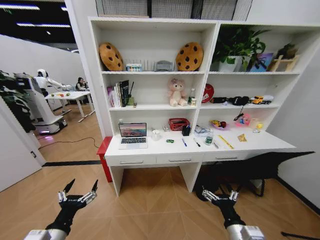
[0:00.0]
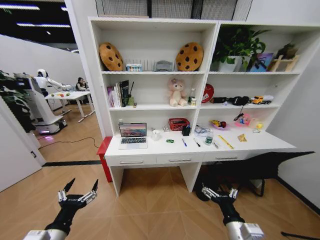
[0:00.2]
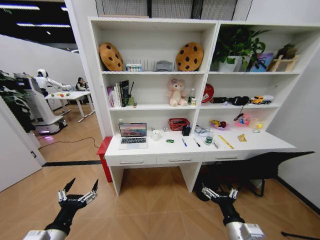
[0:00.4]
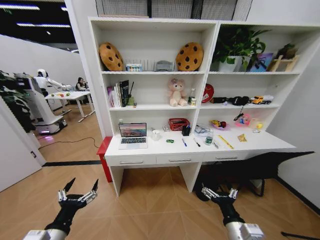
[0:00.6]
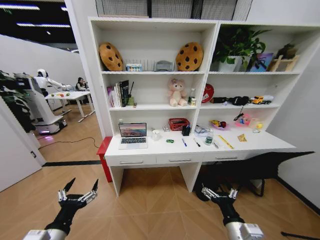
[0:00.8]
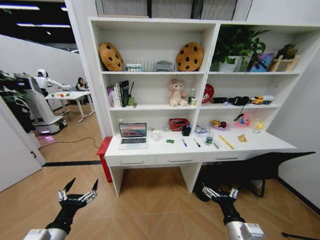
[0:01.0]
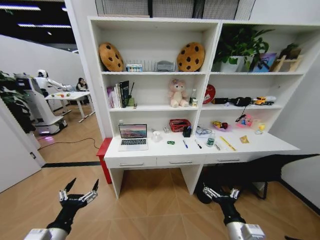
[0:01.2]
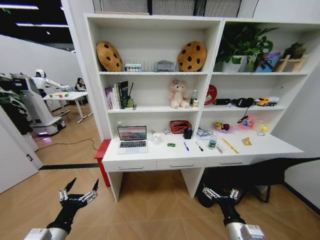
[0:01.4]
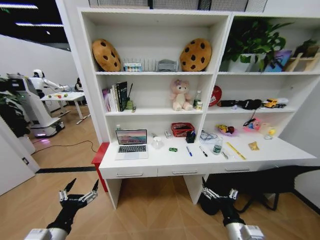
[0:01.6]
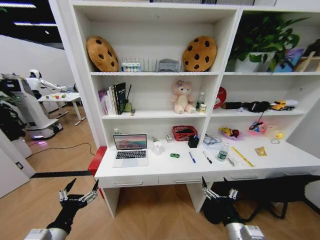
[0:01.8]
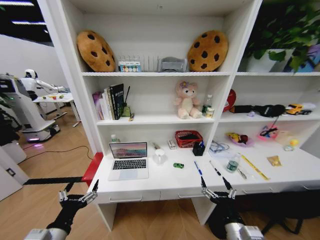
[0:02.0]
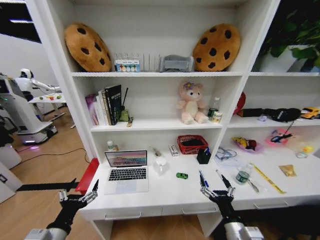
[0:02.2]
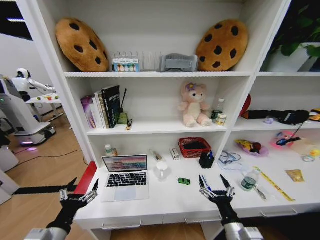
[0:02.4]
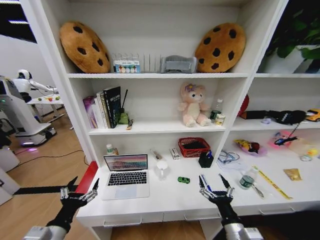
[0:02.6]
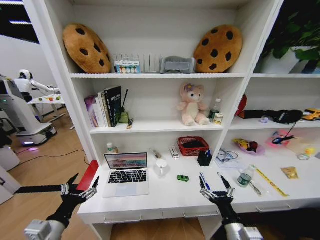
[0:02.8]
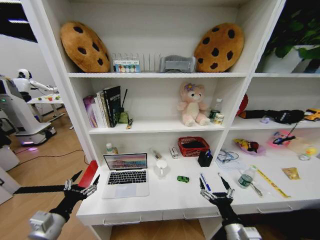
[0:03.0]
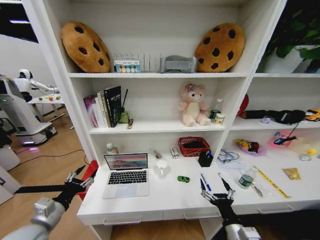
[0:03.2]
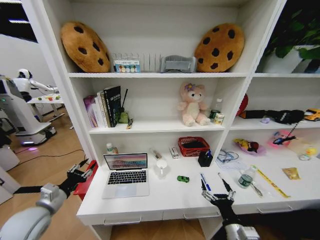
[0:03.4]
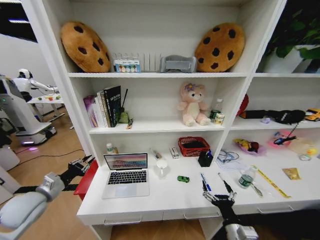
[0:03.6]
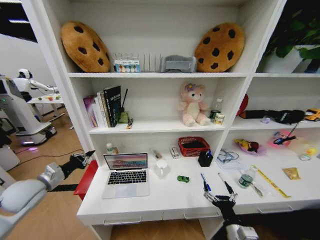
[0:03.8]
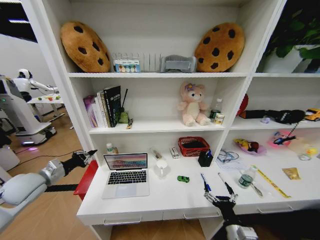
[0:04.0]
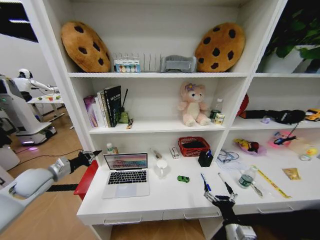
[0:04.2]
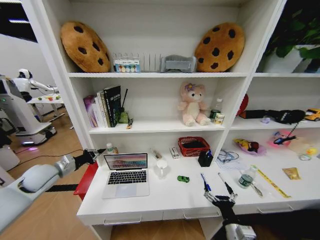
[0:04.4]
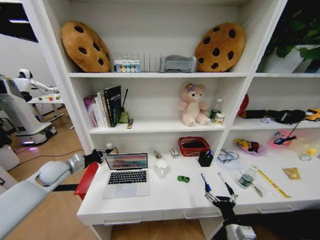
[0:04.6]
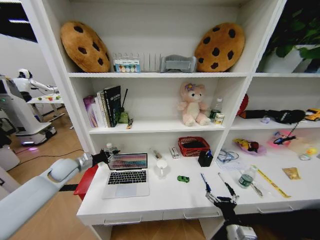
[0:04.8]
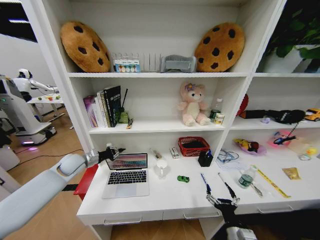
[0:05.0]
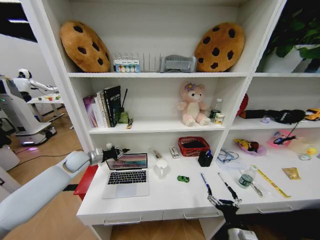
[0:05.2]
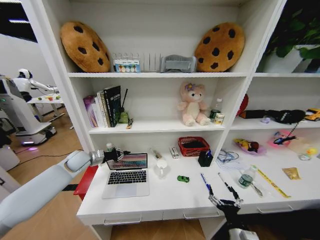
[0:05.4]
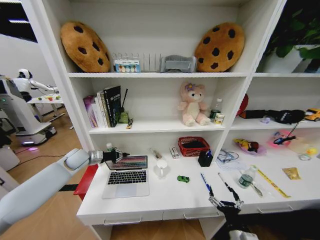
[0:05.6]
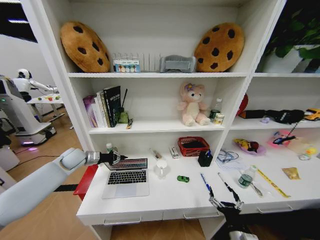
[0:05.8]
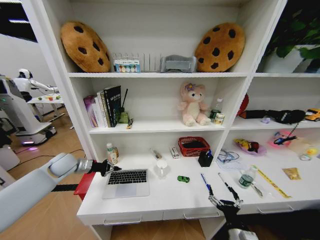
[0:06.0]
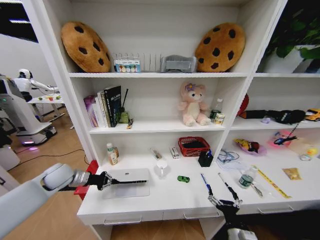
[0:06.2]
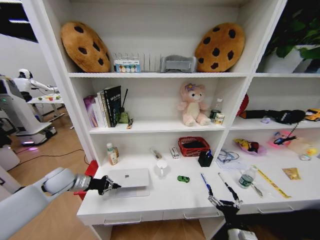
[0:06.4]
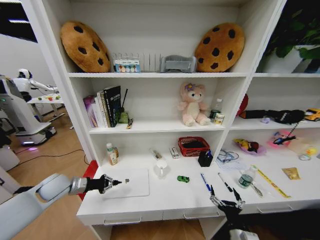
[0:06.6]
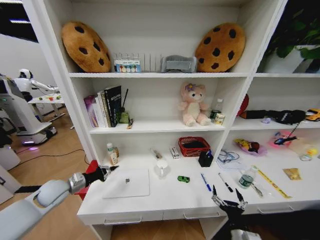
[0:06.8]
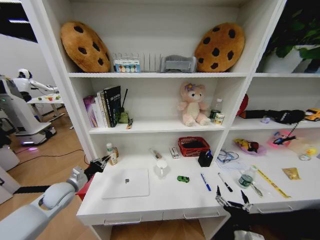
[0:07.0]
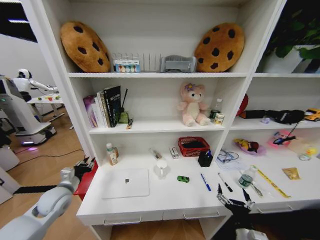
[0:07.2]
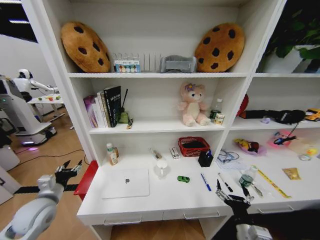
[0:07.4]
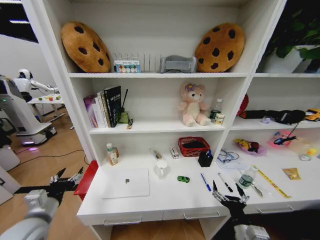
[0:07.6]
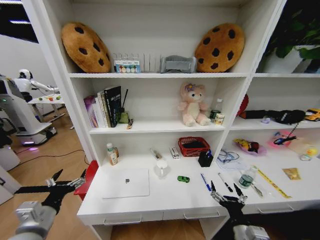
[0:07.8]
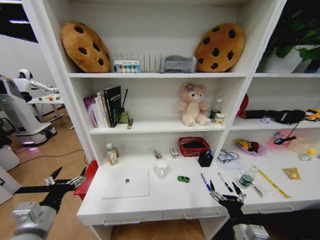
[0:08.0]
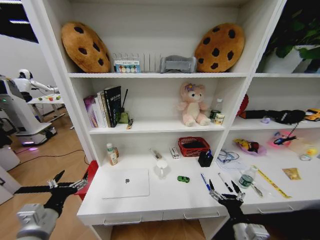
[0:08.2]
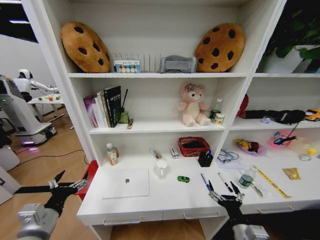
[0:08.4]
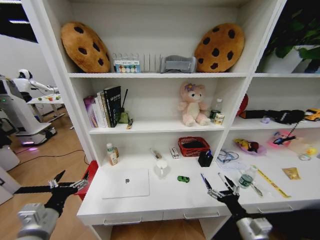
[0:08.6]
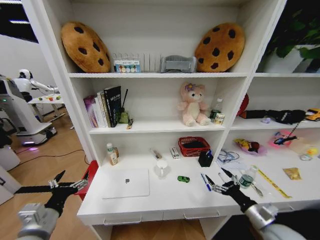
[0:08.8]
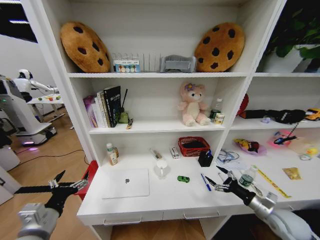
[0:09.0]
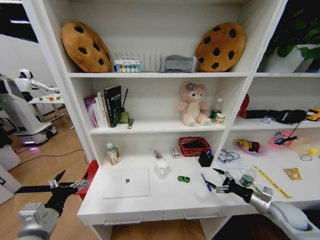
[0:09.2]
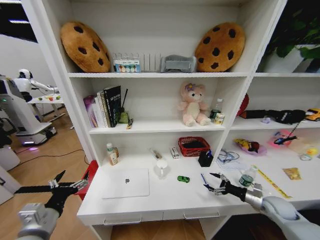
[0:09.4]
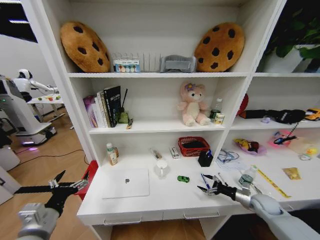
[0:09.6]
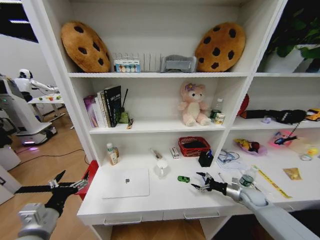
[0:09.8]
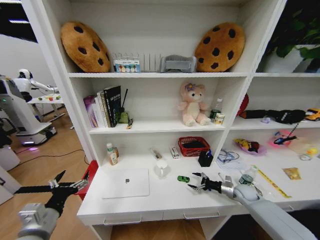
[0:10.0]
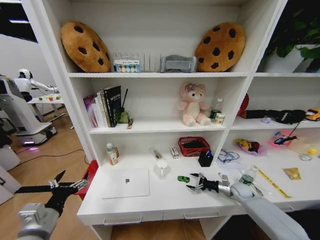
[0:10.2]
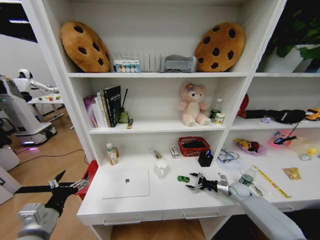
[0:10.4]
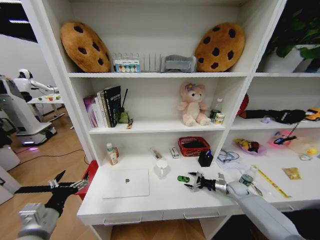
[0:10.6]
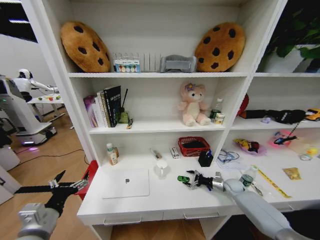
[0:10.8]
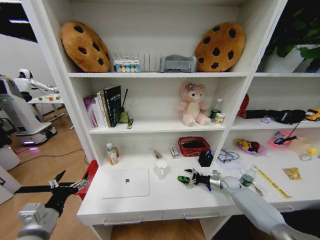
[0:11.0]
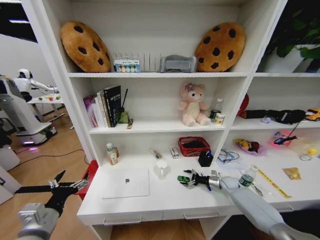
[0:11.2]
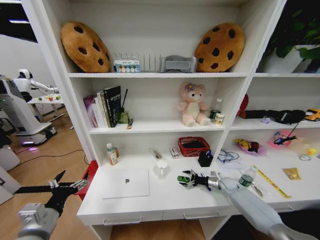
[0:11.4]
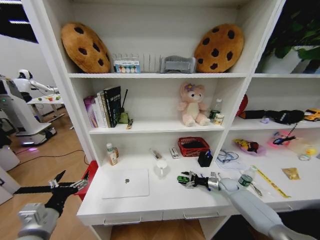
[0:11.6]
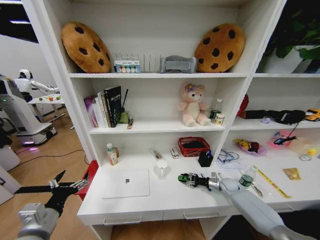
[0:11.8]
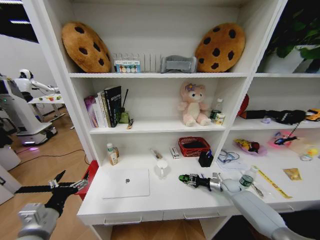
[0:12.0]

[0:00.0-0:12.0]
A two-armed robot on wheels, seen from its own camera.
Task of the whole recording: Organize the objects on the table.
0:03.0 to 0:04.4: The left gripper shifts about 25 cm forward and to the left, and closes its fingers.
0:04.4 to 0:06.0: The left gripper is displaced forward by about 5 cm.
0:06.0 to 0:07.6: The left gripper moves backward, about 25 cm, and opens its fingers.
0:07.6 to 0:09.0: The right gripper goes some 20 cm to the right and forward; the left gripper ends up about 5 cm from where it was.
0:09.0 to 0:10.4: The right gripper is displaced forward and downward by about 20 cm.
0:10.4 to 0:12.0: The right gripper closes its fingers.

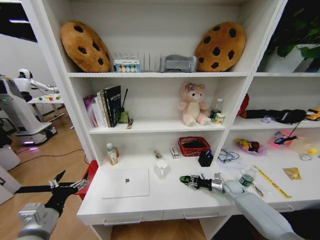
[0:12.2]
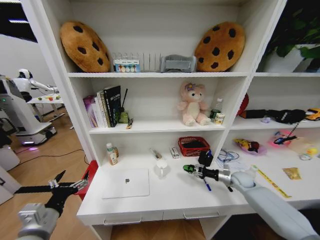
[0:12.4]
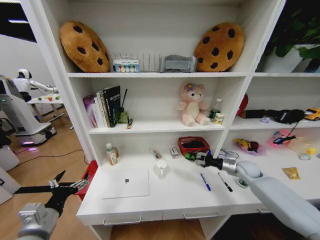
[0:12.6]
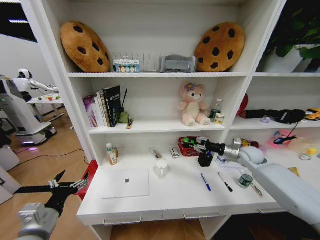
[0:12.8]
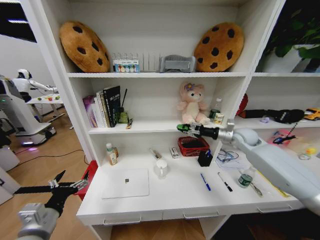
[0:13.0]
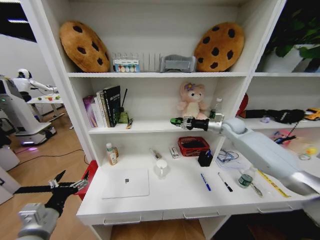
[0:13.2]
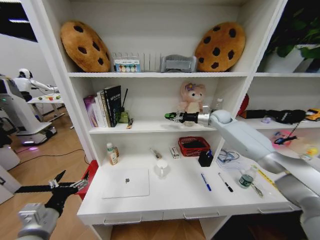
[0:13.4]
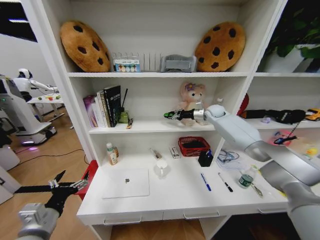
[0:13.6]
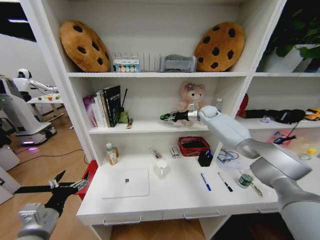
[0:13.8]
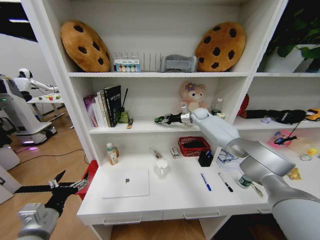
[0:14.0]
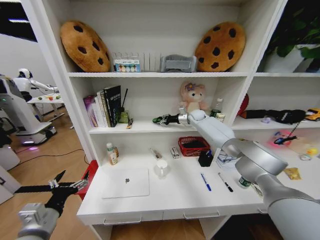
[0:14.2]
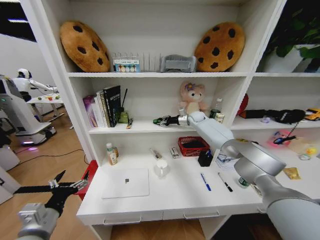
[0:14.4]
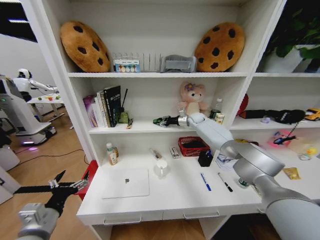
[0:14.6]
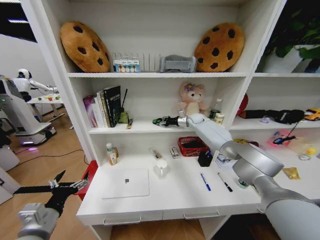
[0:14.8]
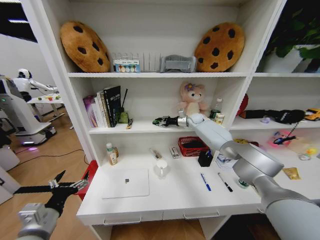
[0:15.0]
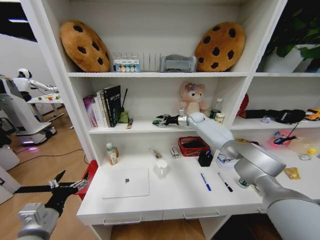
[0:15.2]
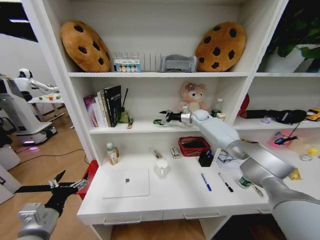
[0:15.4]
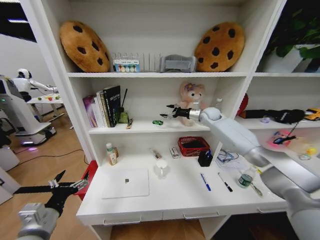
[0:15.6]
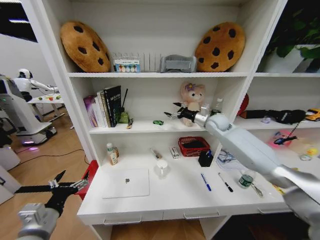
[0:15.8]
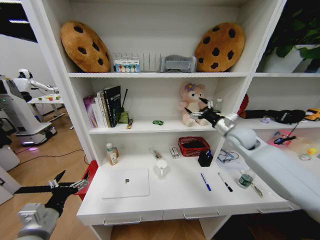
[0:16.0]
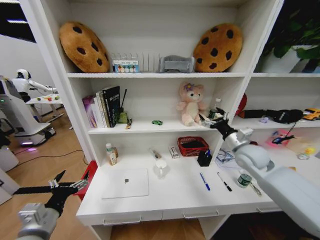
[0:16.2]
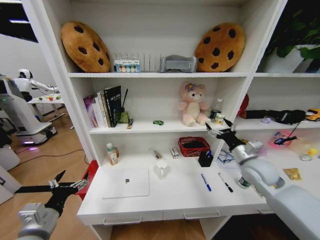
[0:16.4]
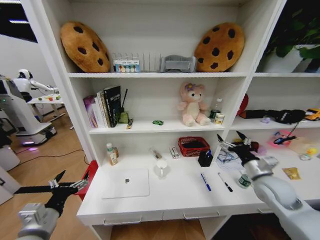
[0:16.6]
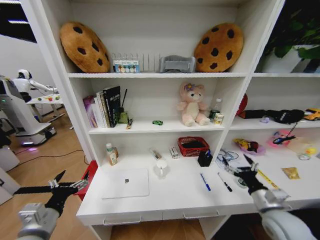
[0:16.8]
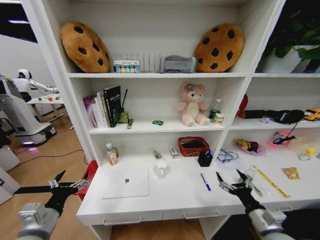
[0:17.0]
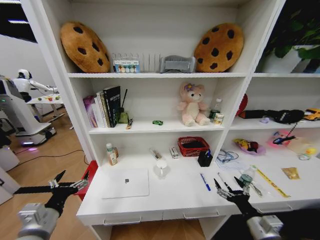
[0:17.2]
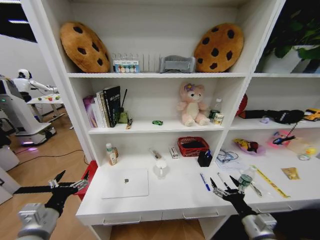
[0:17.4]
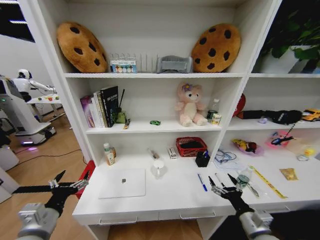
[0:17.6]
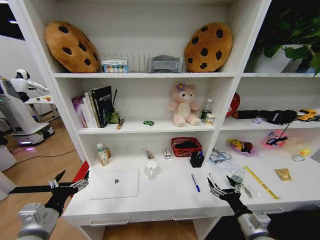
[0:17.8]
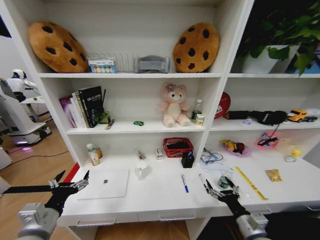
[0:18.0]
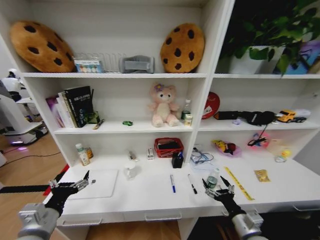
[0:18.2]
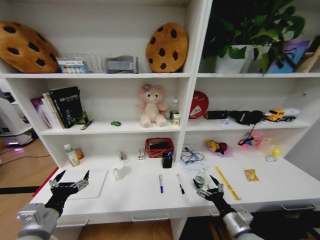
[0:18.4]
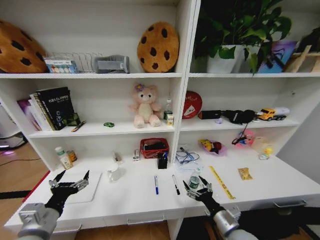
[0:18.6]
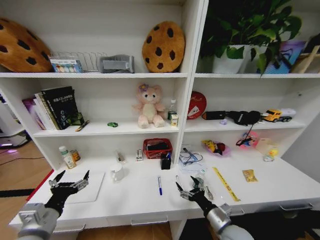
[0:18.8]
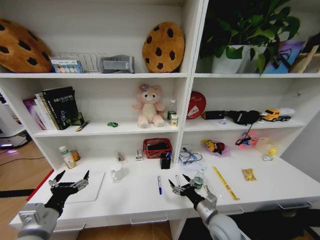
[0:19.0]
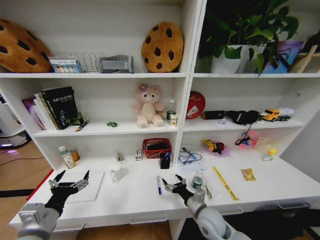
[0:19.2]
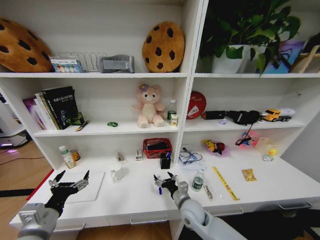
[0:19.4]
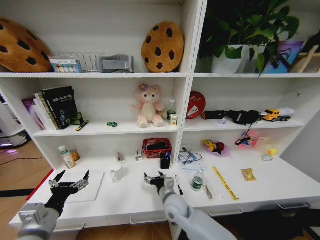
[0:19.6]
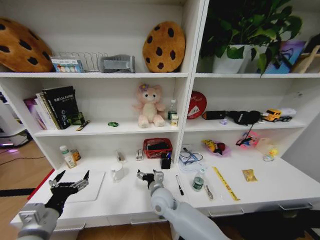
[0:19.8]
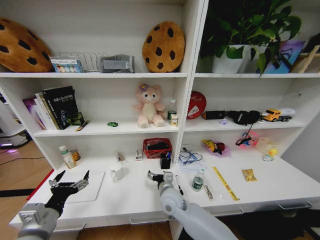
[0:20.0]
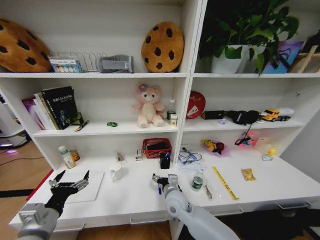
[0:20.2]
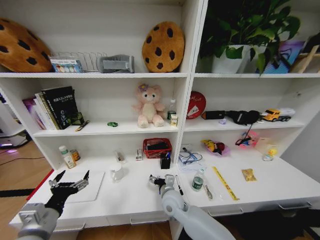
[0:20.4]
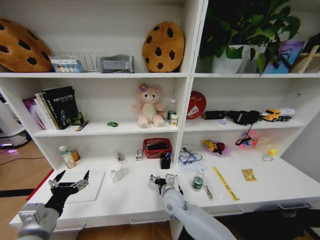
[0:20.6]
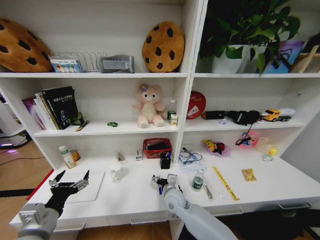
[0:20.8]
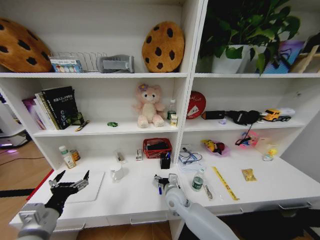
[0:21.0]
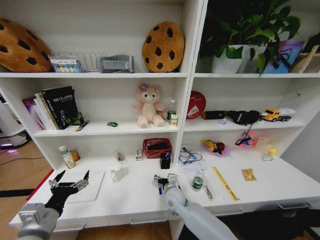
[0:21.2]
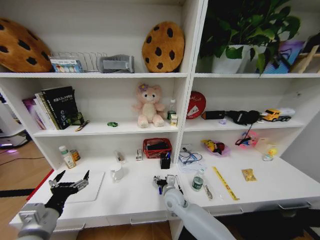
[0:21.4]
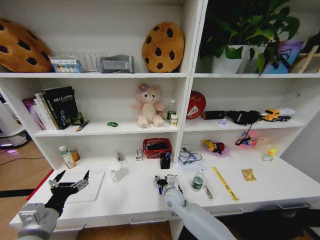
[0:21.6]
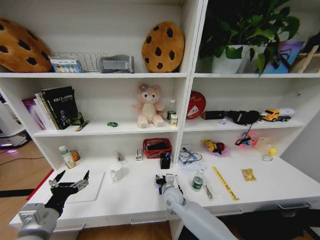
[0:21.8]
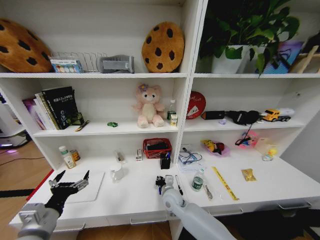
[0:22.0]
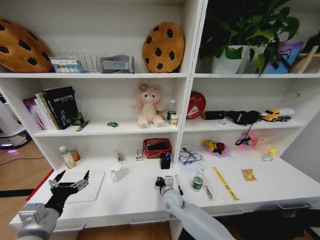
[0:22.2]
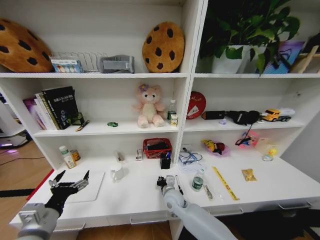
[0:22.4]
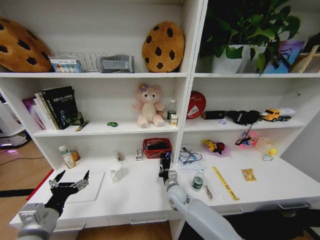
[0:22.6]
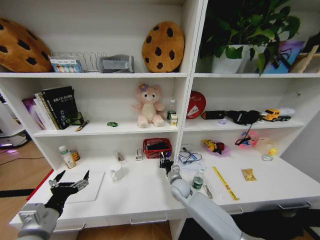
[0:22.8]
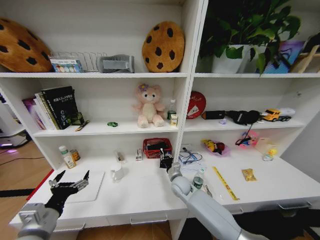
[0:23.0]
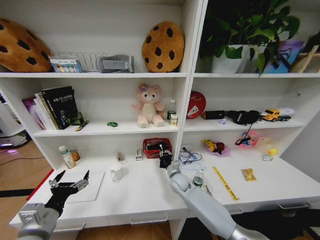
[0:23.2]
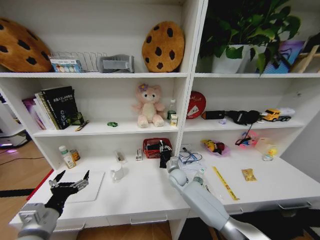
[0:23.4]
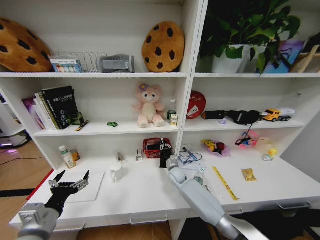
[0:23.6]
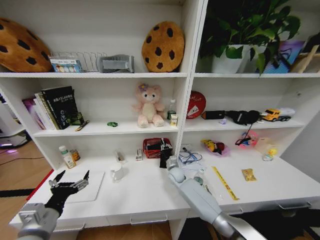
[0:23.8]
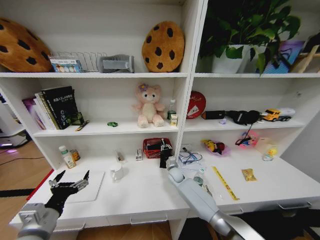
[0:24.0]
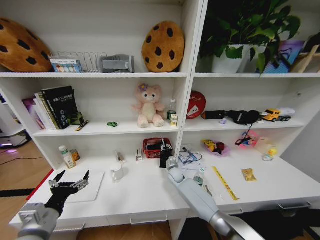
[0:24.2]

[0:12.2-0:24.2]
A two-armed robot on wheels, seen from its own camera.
Task of the whole recording: Organize the objects on the table.
0:12.2 to 0:13.8: The right gripper moves upward, forward and to the left, roughly 50 cm.
0:13.8 to 0:15.2: The right gripper ends up approximately 5 cm from where it was.
0:15.2 to 0:16.6: The right gripper moves backward, some 40 cm.
0:16.6 to 0:18.2: The right gripper heads backward, downward and to the left, covering roughly 20 cm.
0:18.2 to 0:19.8: The right gripper heads to the left and forward, covering about 35 cm.
0:19.8 to 0:21.2: The right gripper shifts roughly 10 cm to the right and downward.
0:21.2 to 0:22.6: The right gripper closes up.
0:22.6 to 0:24.2: The right gripper heads forward, covering about 15 cm.
